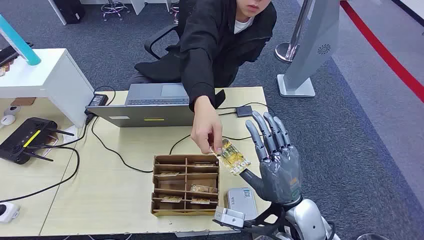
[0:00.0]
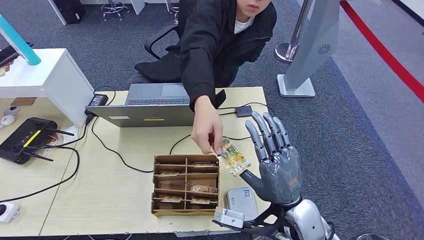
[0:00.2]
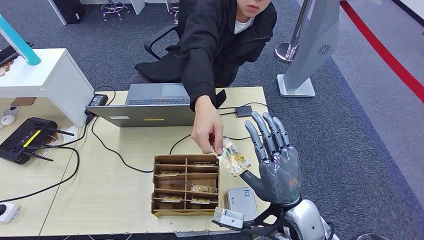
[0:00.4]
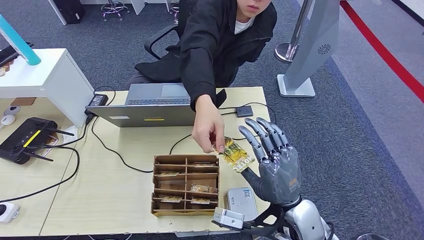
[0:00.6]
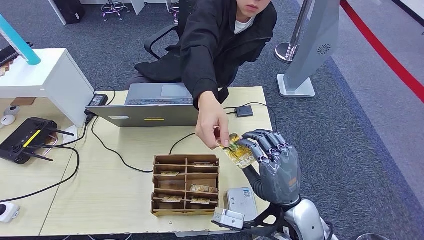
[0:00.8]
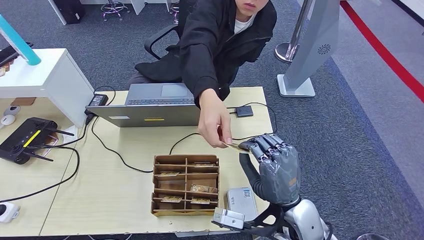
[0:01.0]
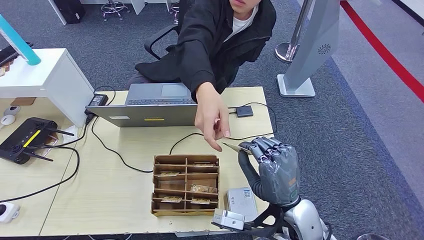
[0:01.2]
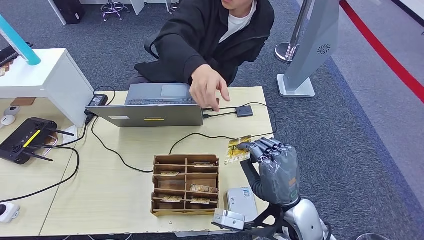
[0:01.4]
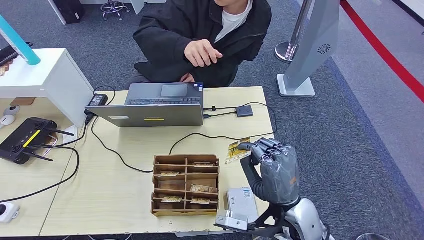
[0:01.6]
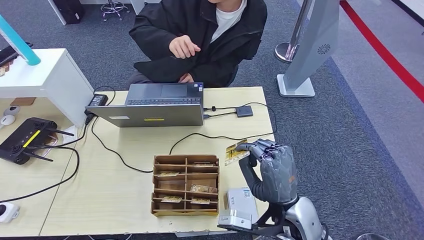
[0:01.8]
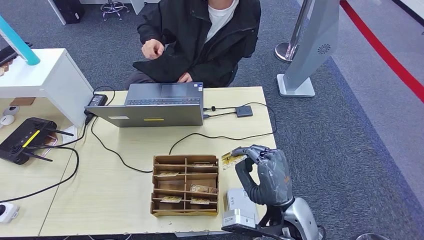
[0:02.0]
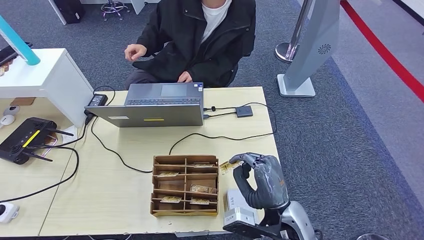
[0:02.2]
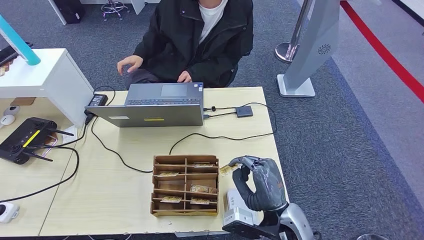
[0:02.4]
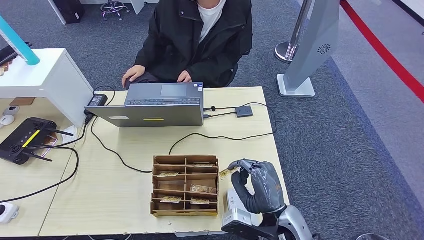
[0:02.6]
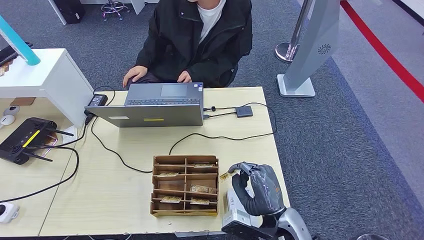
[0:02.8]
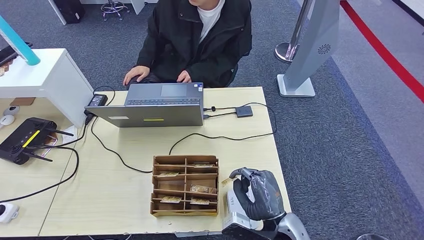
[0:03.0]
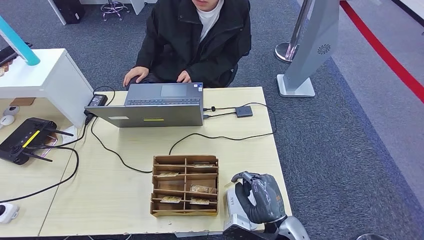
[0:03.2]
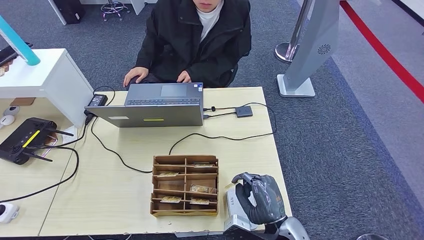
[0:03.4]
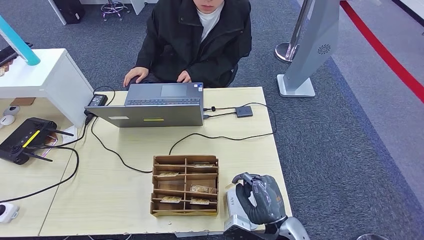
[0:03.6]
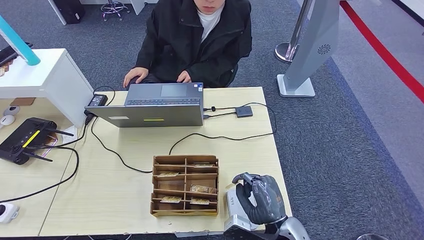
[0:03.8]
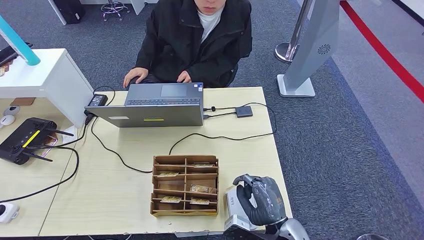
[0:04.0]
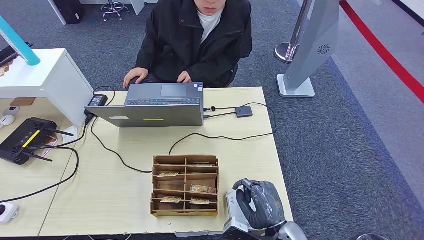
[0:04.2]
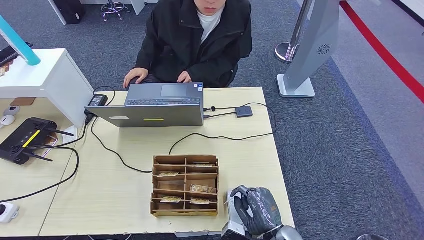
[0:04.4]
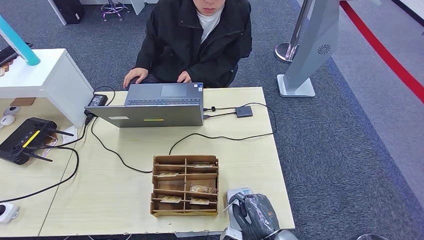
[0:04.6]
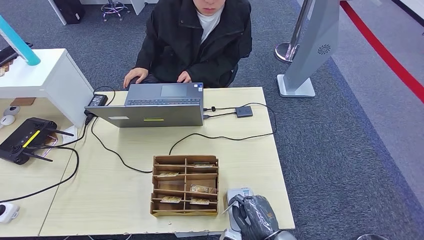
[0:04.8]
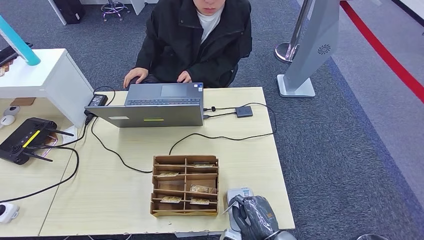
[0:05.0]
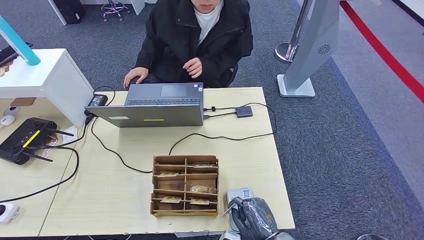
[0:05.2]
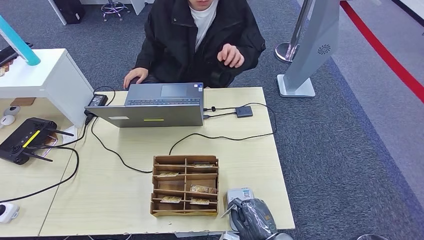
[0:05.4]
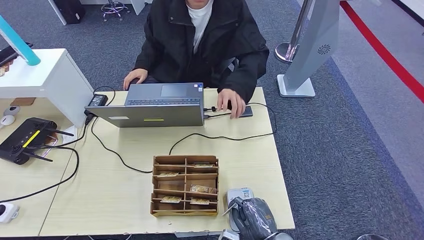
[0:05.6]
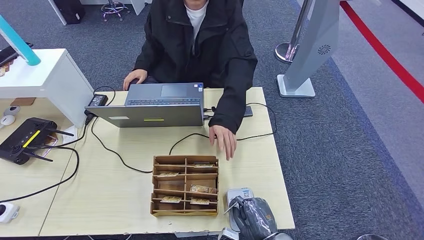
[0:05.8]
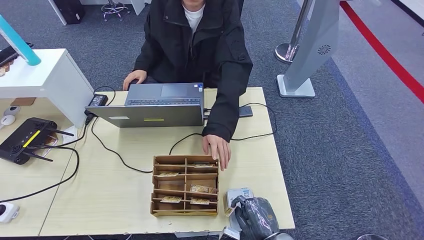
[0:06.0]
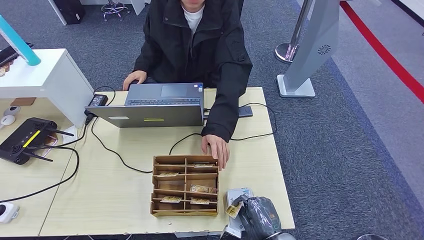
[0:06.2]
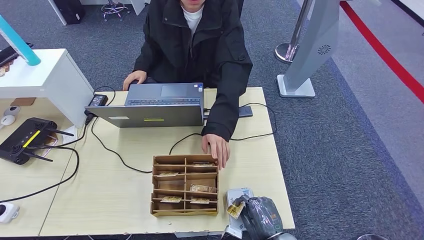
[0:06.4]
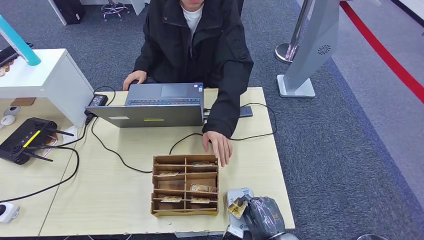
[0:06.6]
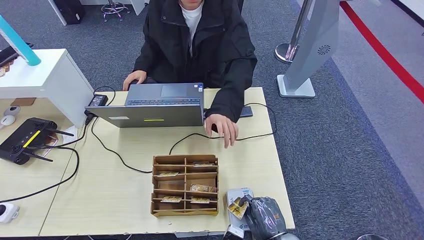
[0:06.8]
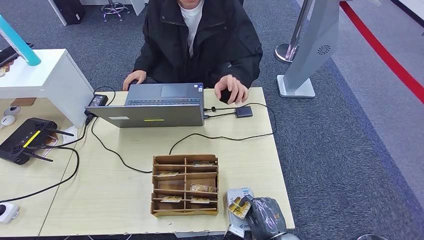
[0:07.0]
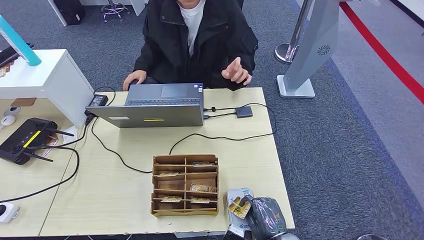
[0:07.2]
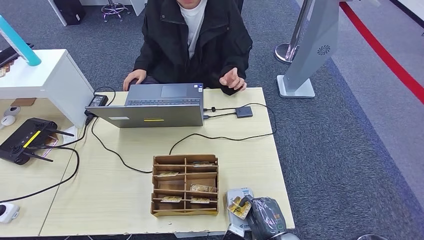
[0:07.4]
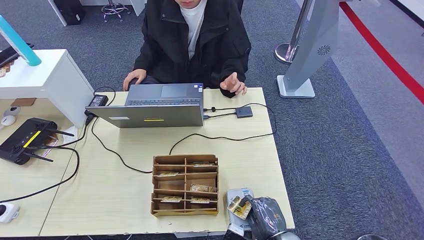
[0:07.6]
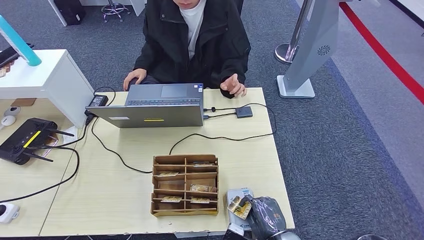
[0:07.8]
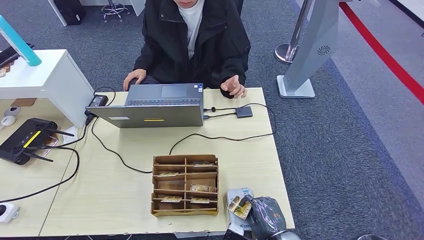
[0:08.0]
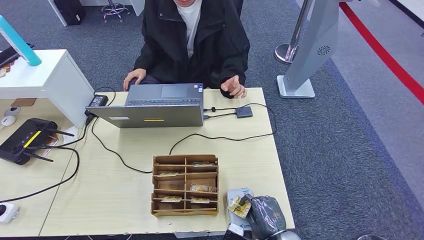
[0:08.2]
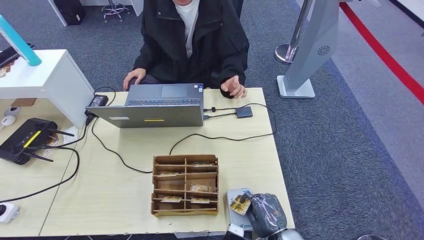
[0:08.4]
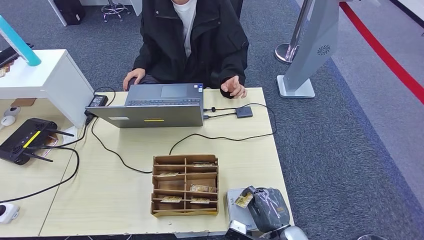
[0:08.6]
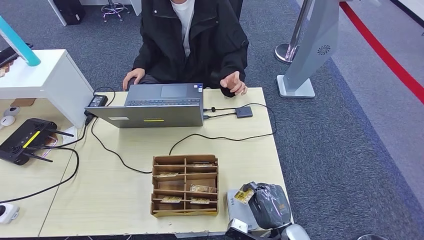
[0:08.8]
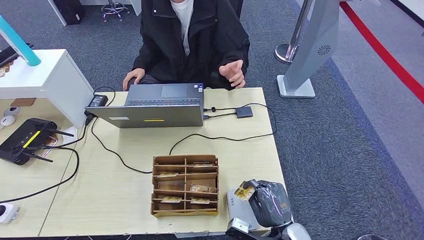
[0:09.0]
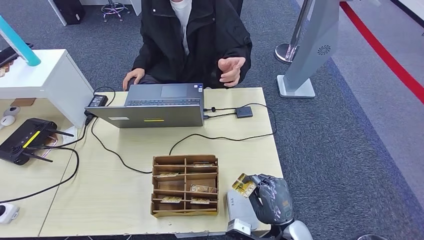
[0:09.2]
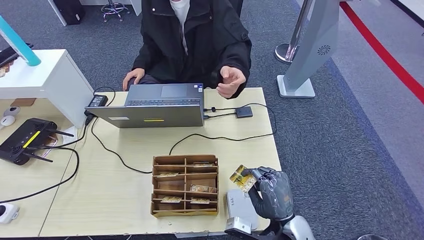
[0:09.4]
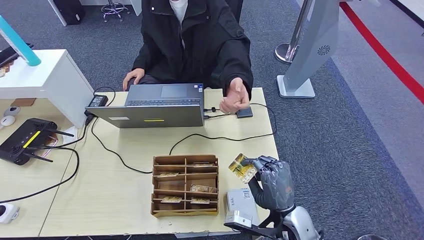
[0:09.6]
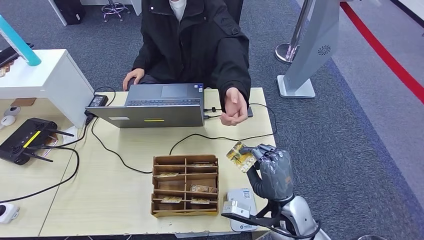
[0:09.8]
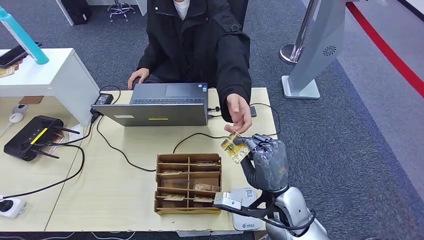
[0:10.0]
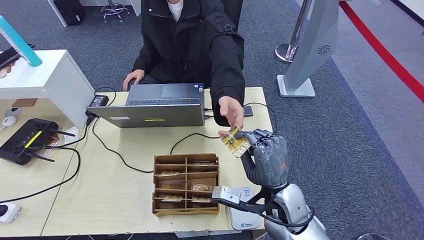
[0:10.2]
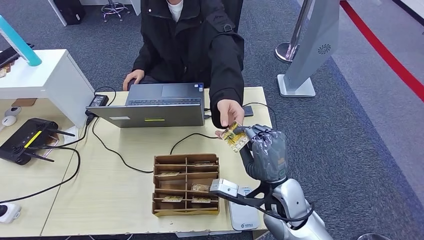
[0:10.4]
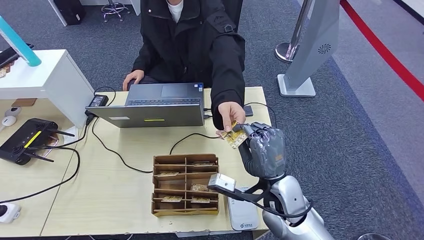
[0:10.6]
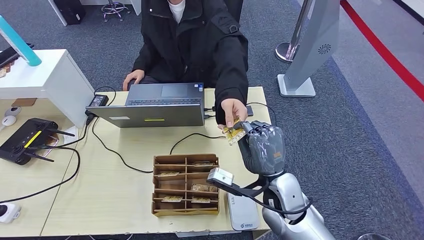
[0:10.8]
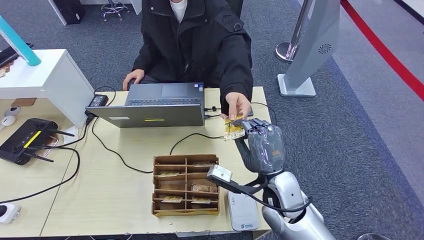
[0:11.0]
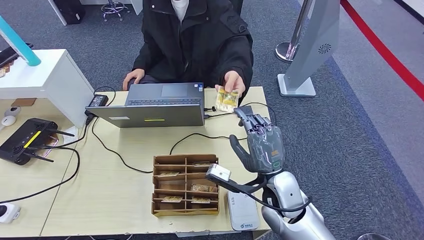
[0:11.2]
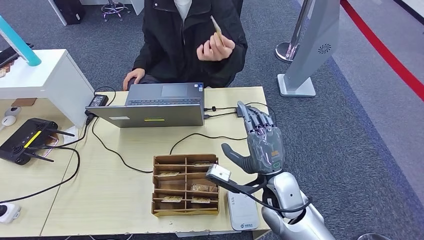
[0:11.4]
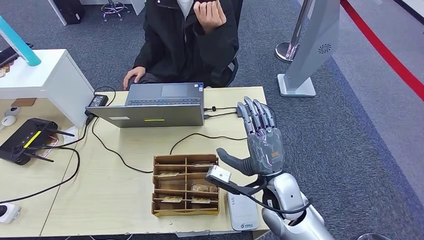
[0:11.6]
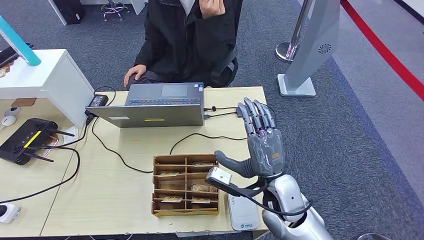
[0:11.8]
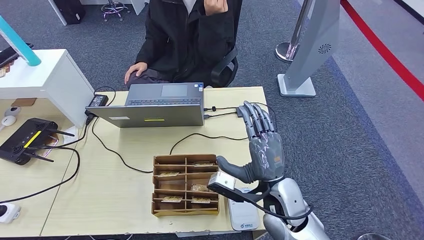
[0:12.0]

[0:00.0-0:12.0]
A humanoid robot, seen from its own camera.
Step, 0.0 to 1.6 s: Take the ID card from the person's hand.
Step, 2.0 to 7.0 s: Place the ID card on the card reader.
1.6 to 3.0 s: The right hand shifts approximately 10 cm downward. Meanwhile the left hand is displaced backward, to the left and upward by some 20 cm.
3.0 to 4.4 s: The right hand ends up some 5 cm from where it was.
4.4 to 7.6 s: The hands make only small movements.
9.0 to 10.4 s: The left hand is displaced forward, to the right and downward by some 20 cm; the right hand moves upward and forward, some 15 cm.
10.4 to 12.0 s: The hands move only a little.

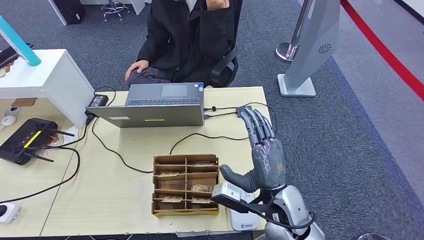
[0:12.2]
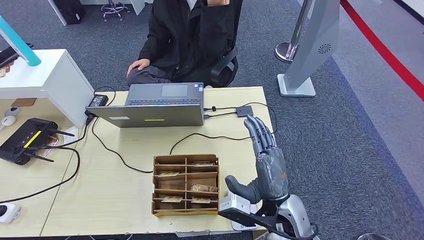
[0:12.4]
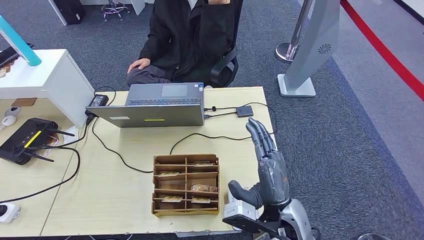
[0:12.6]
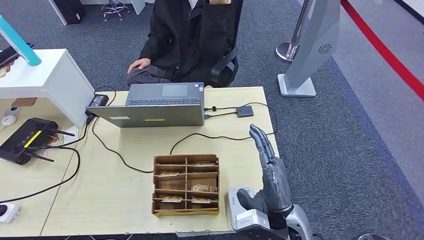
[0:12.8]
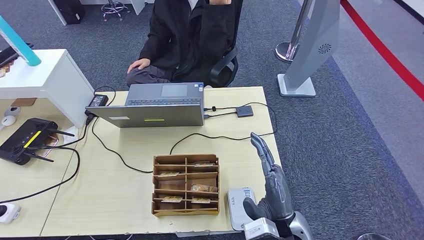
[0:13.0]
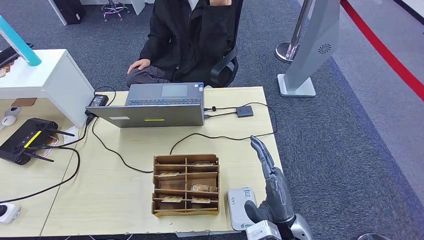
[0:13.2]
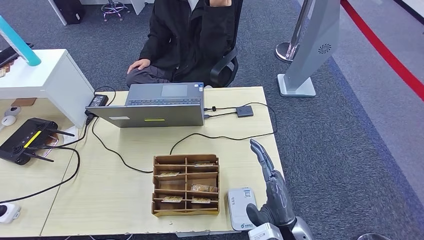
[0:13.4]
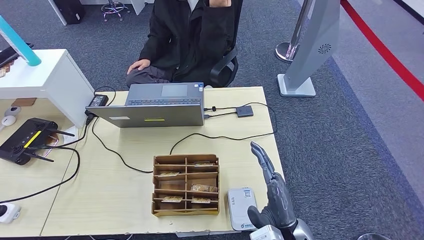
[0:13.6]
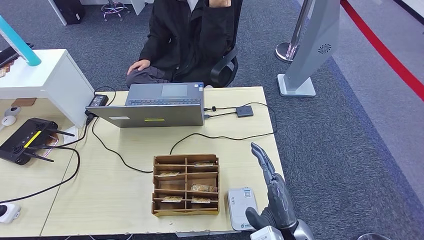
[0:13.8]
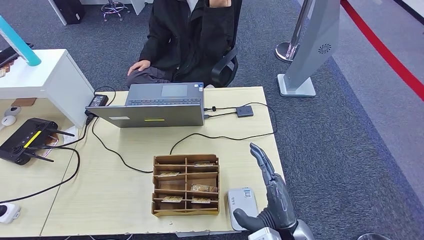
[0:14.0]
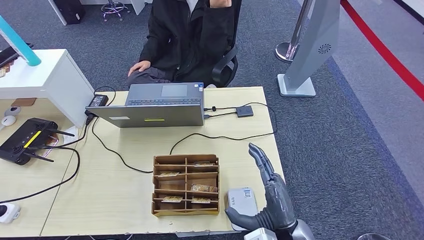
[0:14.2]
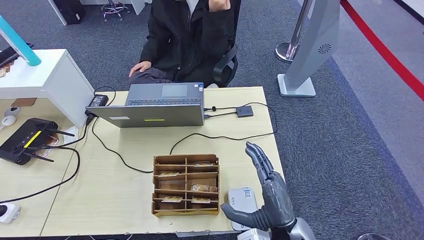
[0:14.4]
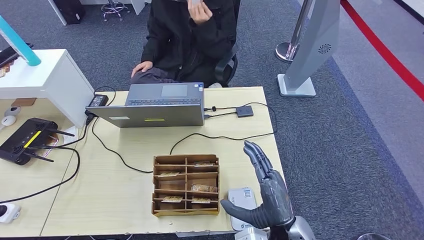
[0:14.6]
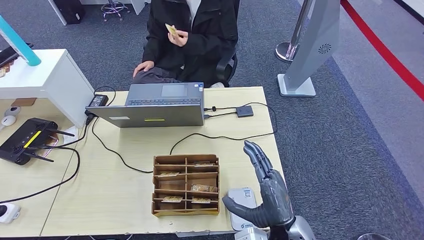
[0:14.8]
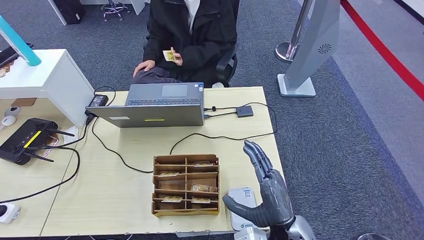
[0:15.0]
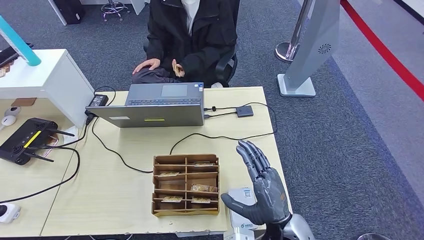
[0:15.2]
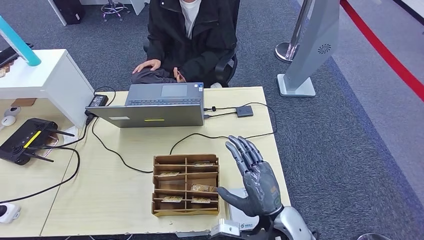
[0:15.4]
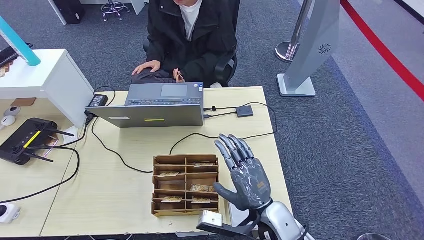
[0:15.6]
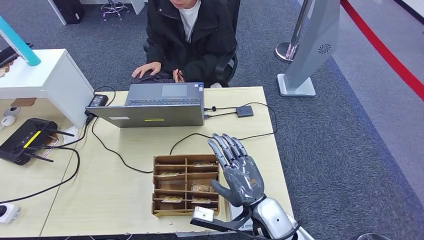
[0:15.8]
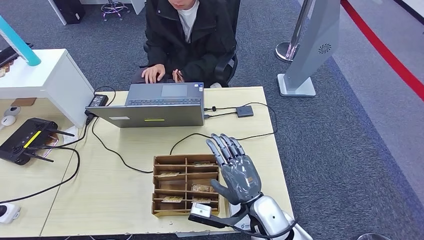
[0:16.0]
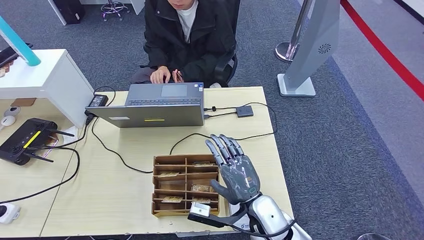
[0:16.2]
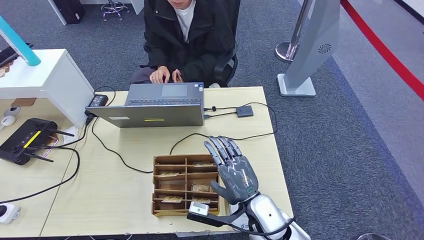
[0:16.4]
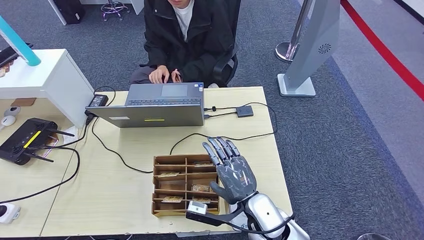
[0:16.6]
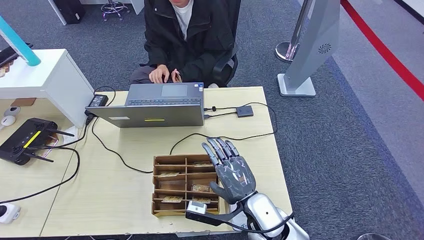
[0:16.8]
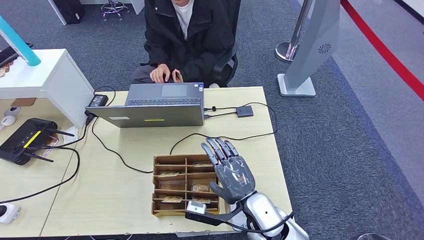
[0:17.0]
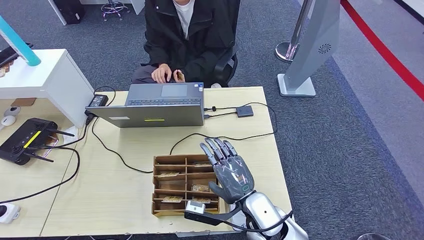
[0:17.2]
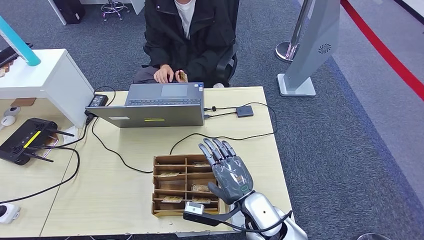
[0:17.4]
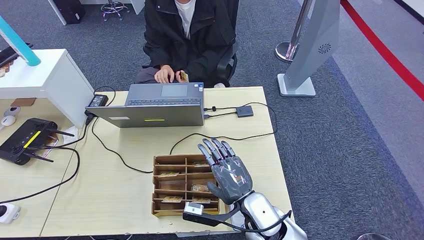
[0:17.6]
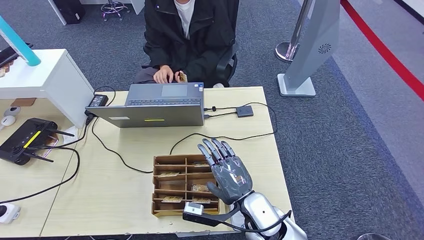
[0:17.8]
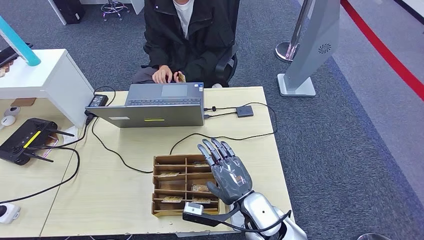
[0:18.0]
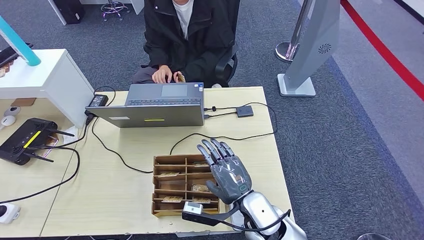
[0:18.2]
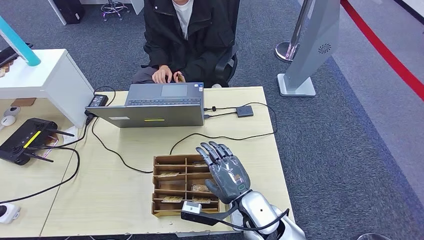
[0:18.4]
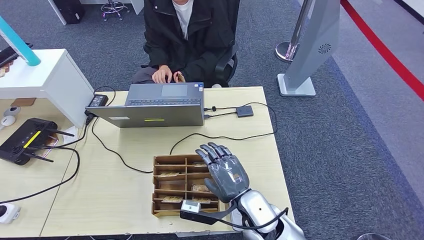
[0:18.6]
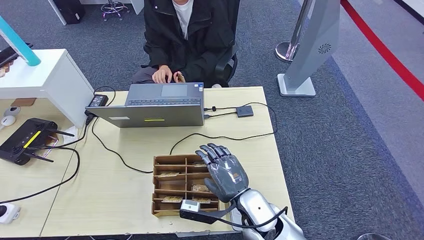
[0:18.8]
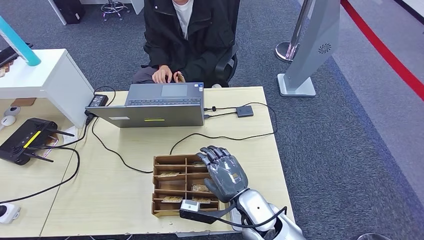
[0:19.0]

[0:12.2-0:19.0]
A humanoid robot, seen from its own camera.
Step, 12.2 to 15.2 s: Hand the ID card to the person.
12.2 to 13.6 s: The right hand heads backward, covering about 5 cm.
13.6 to 15.0 s: The hands move only a little.
15.0 to 16.2 s: The right hand moves forward and to the left, about 5 cm.
16.2 to 17.6 s: There are only small adjustments of the hands.
17.6 to 19.0 s: Neither hand changes place.
